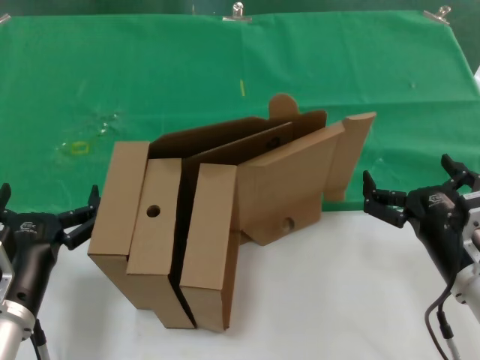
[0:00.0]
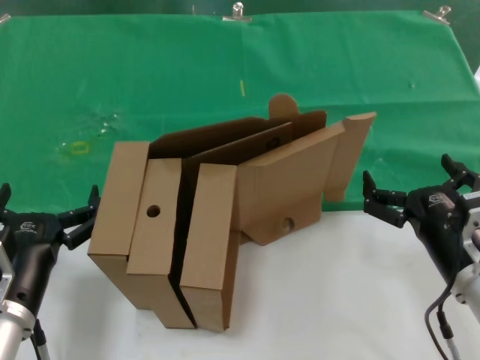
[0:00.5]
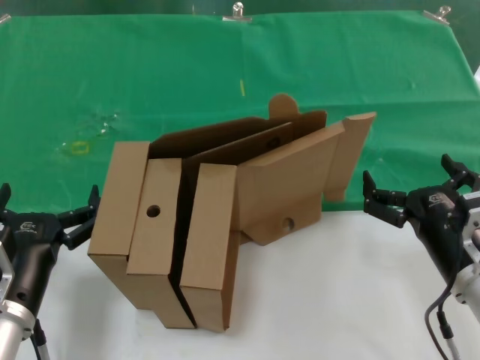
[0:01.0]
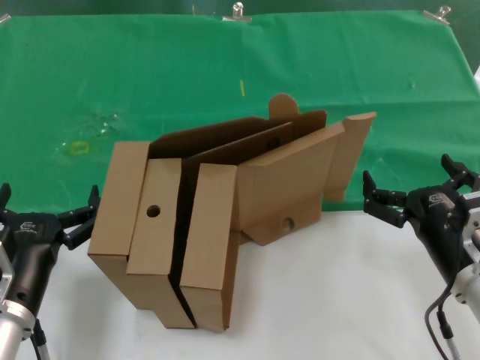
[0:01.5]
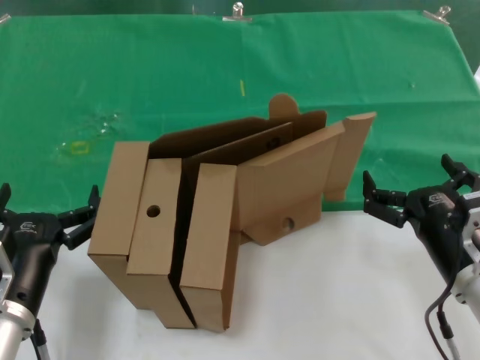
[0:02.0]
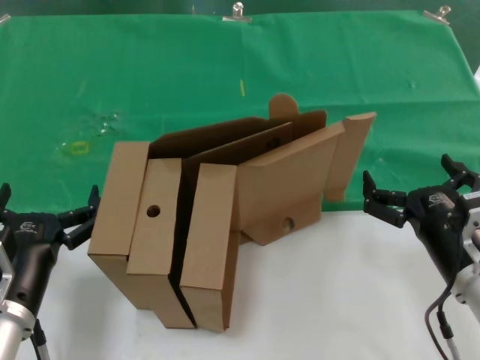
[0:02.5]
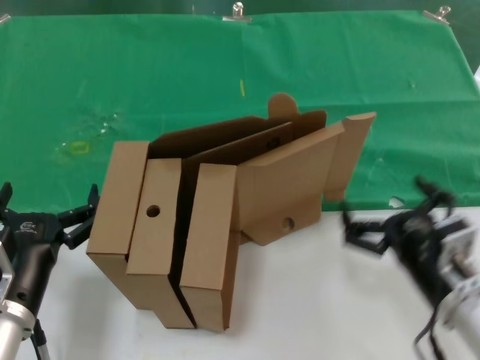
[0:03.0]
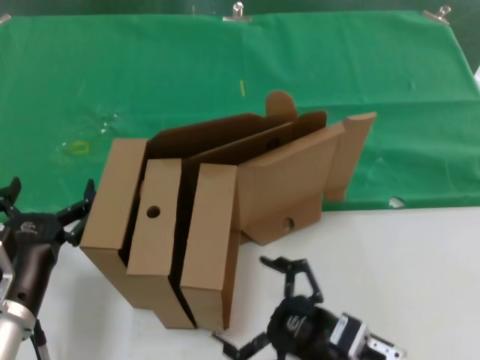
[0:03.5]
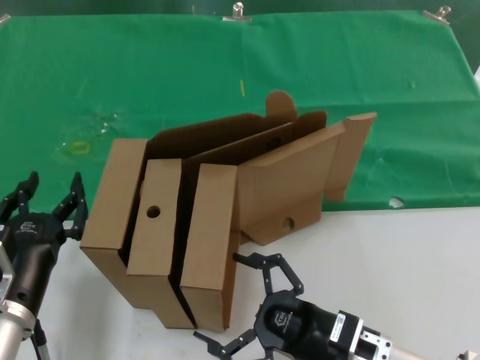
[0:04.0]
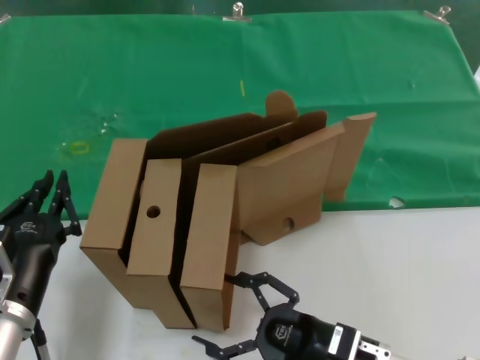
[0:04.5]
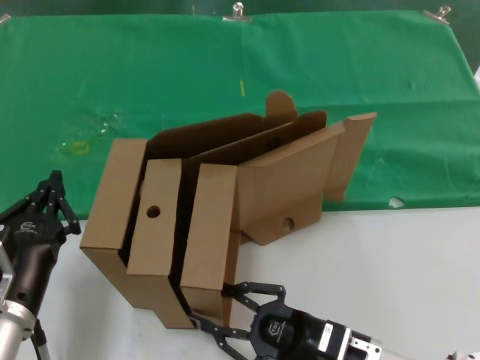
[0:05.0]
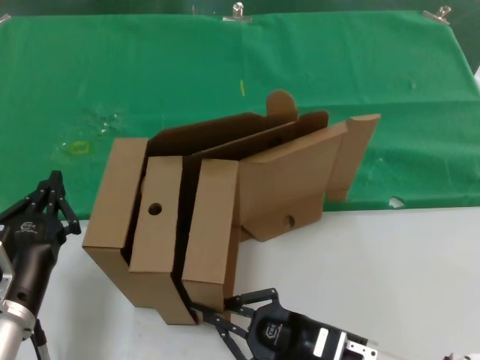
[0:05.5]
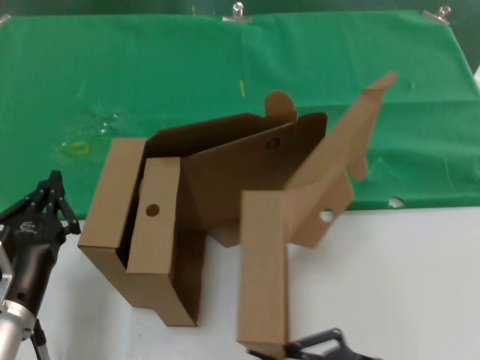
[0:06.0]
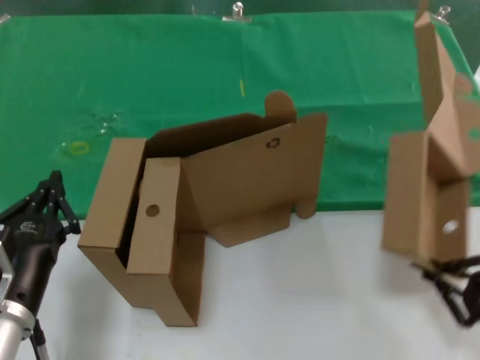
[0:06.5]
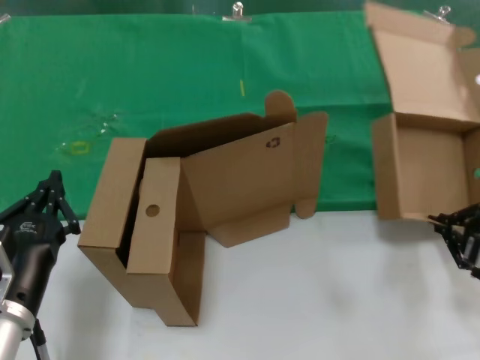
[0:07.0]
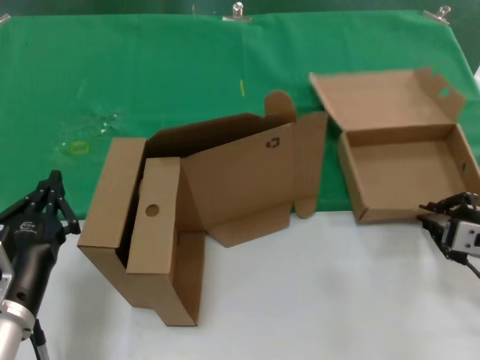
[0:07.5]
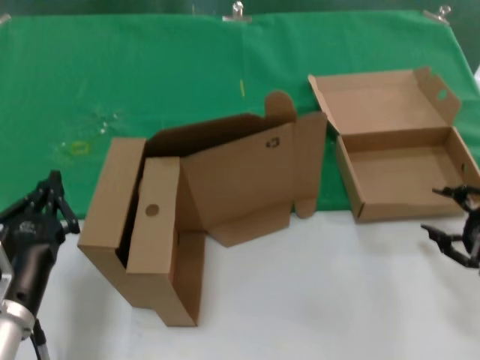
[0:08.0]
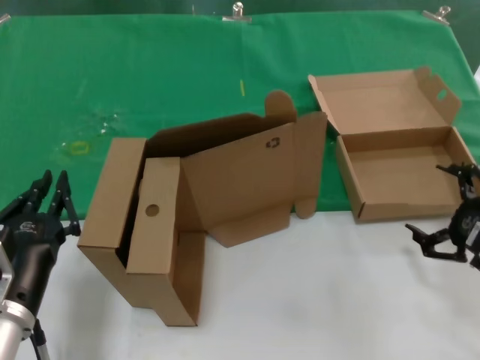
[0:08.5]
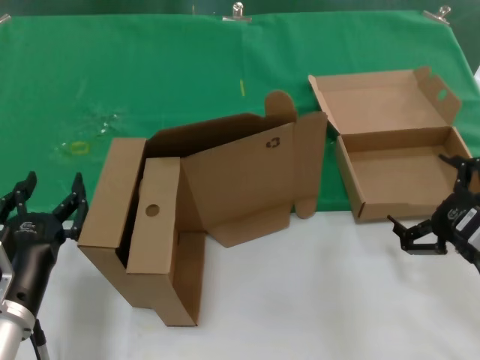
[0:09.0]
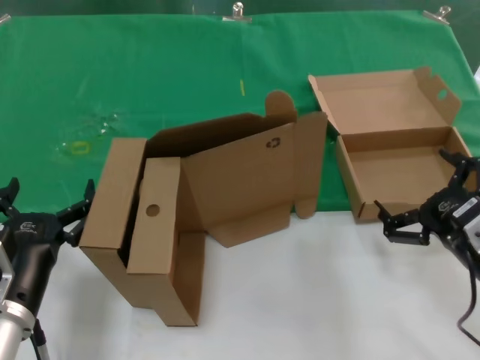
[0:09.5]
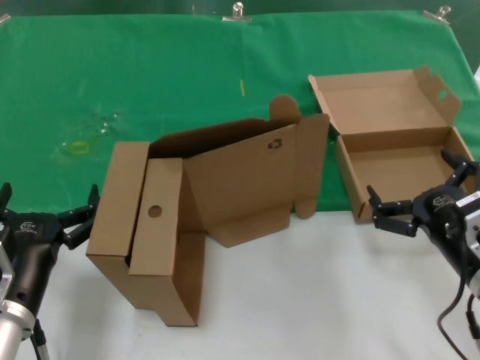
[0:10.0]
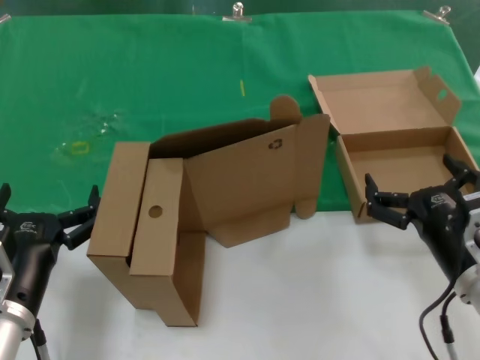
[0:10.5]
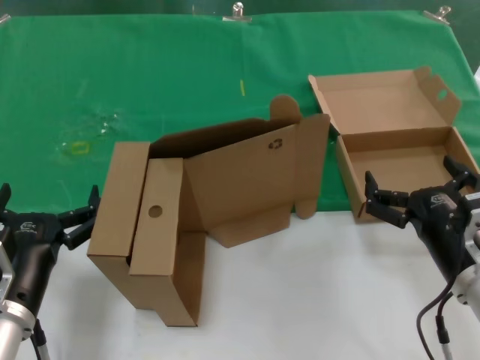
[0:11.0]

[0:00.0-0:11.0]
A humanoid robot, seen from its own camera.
Task of the whole recording: pick up the paper box and put it at the back.
Step, 0:00.0 to 0:05.5: Grasp the paper box.
Step, 0:06.0 to 0:07.5: Place the paper box on the table.
0:00.0 to 0:02.0: Neither hand changes place.
0:02.0 to 0:03.5: The right hand goes roughly 10 cm to the left and downward.
0:03.5 to 0:05.5: The right hand moves some 5 cm.
0:05.5 to 0:07.5: The right hand moves to the right, upward and forward, some 25 cm.
0:07.5 to 0:09.0: The right hand heads backward, covering some 5 cm.
0:09.0 to 0:11.0: The right hand shifts roughly 10 cm to the left.
